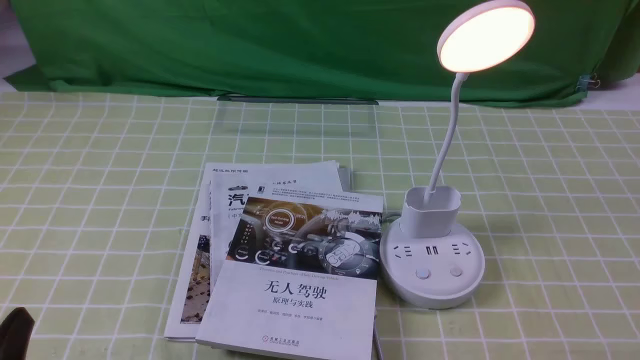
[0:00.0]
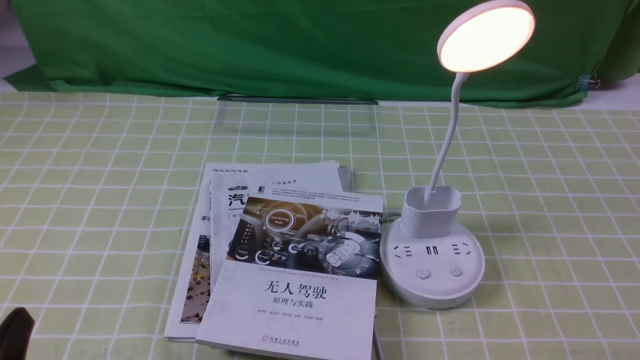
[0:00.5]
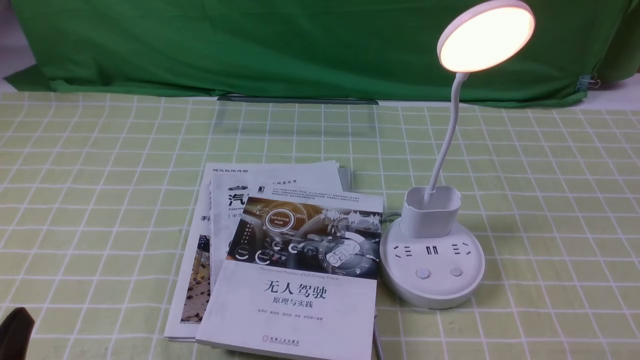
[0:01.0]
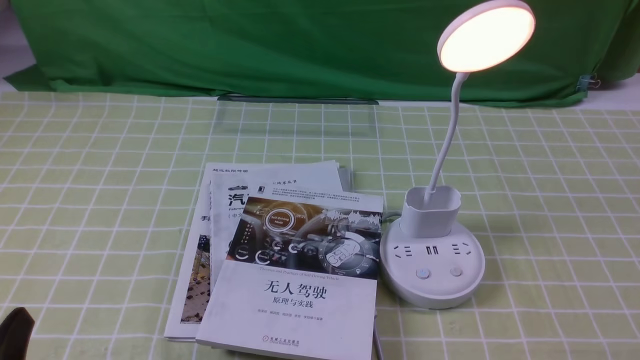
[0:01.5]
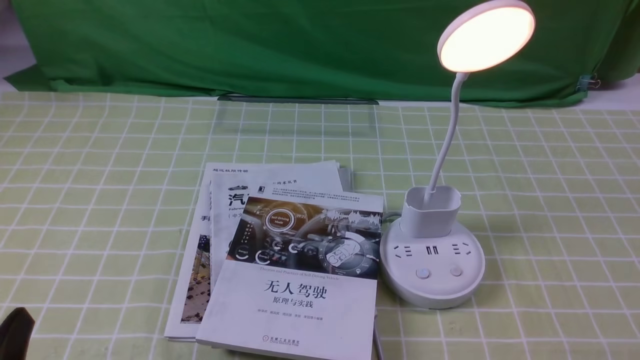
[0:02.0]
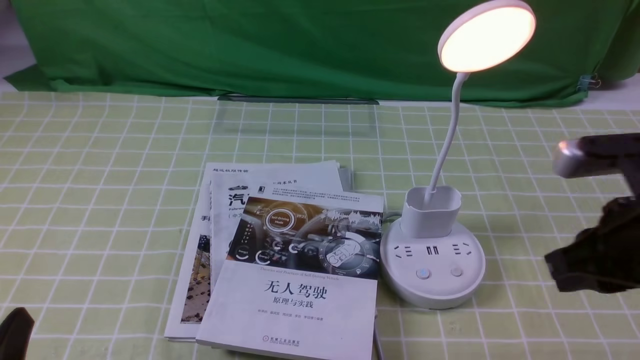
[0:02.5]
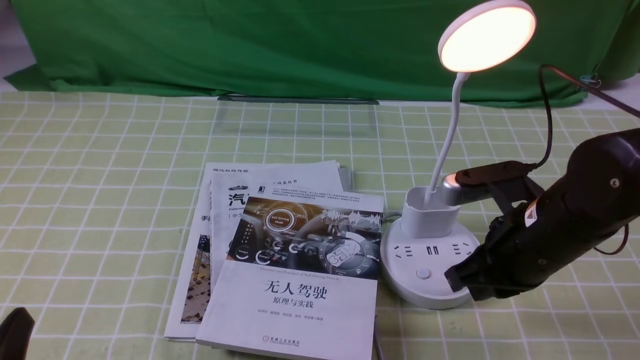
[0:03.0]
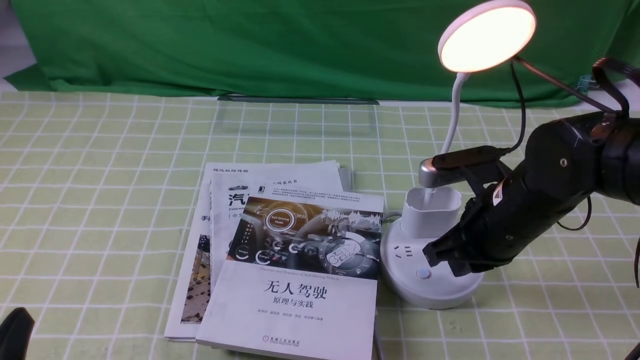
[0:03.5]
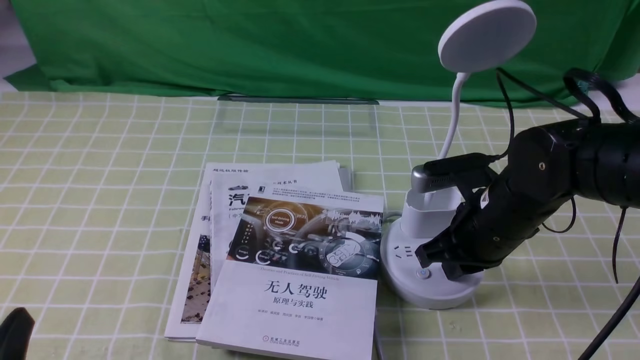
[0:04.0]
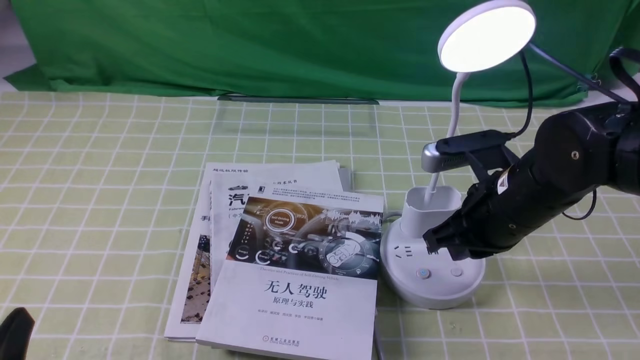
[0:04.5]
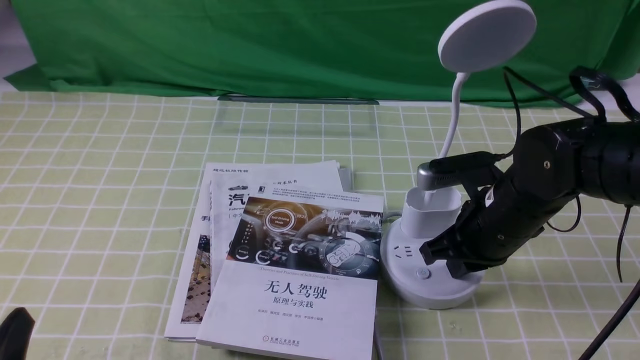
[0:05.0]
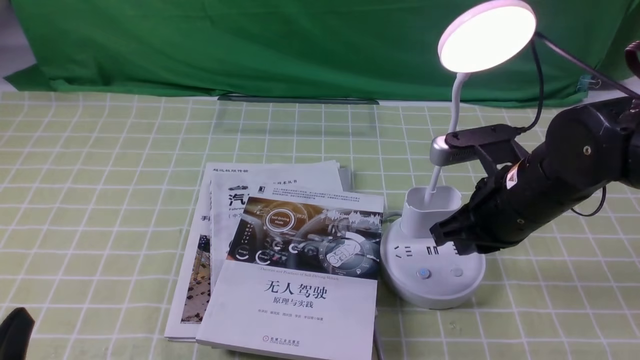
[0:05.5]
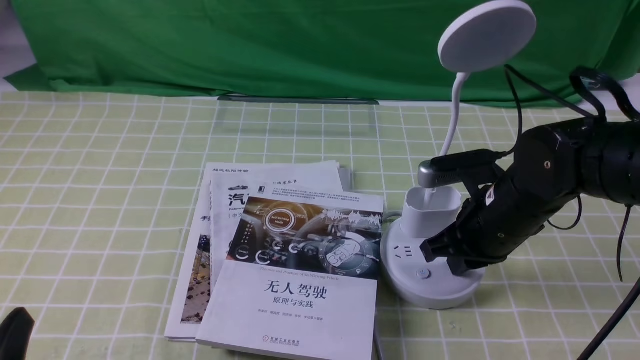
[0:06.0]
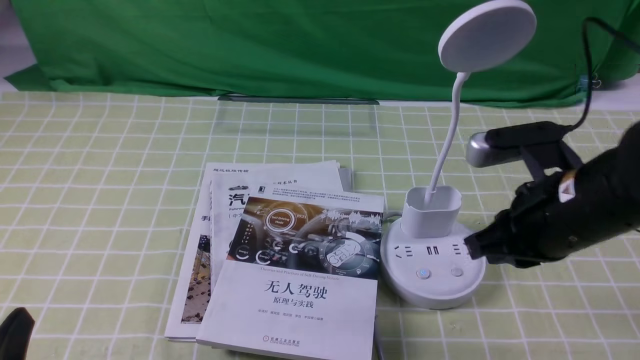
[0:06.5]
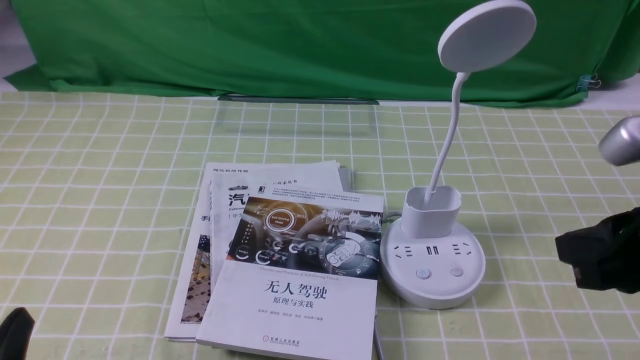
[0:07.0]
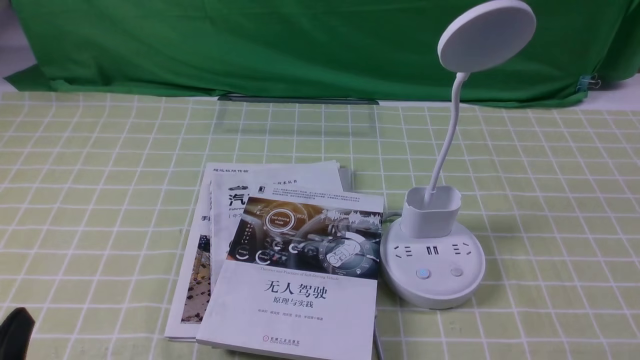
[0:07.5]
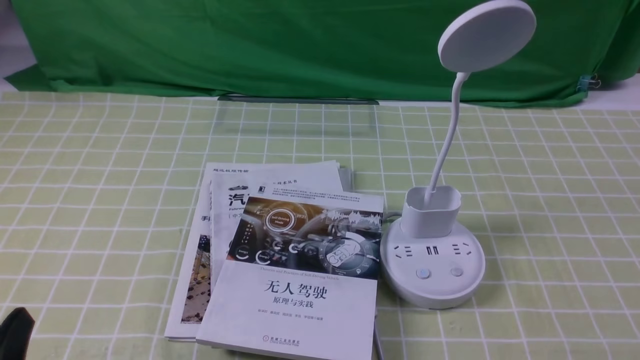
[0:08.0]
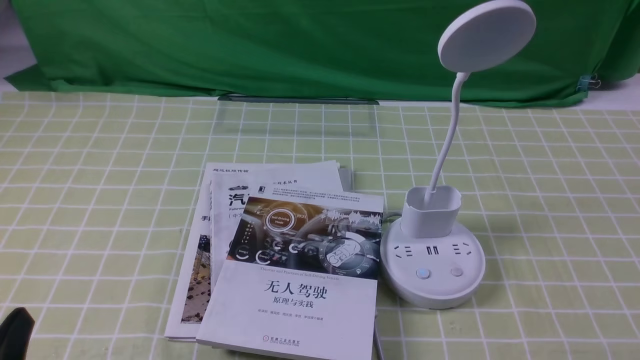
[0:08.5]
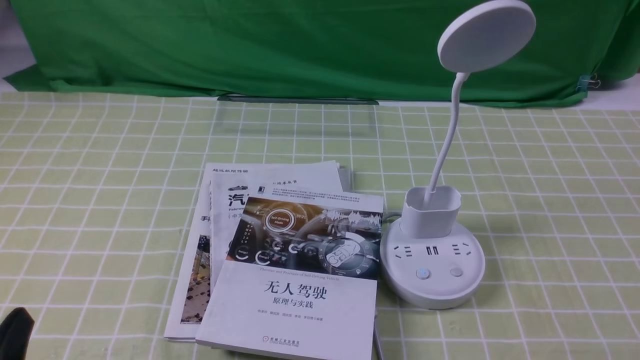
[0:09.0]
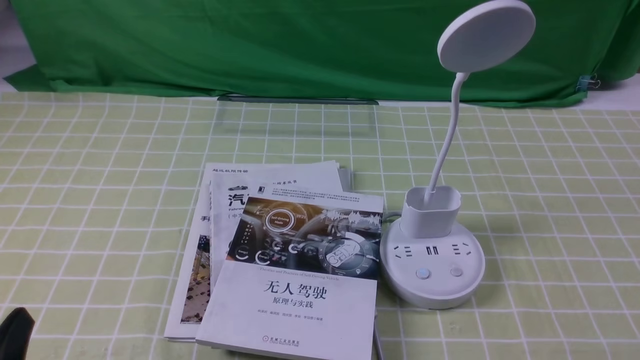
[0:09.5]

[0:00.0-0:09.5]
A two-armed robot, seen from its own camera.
Task of the whole recording: turn off the desk lamp on the green coffee tablecloth by hand.
Step, 0:00.0 to 0:06.0: use the right arm to press the button switch on the lamp holder.
0:02.0 to 0:04.0: The right gripper moves forward, to the left and downward, about 30 cm.
0:04.0 to 0:05.5: There are only small adjustments of the grippers.
0:05.5 to 0:07.5: The right gripper shifts approximately 25 cm backward and to the right.
